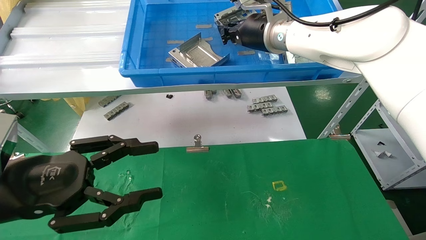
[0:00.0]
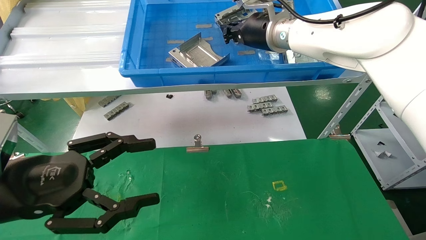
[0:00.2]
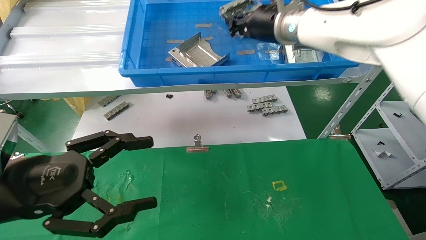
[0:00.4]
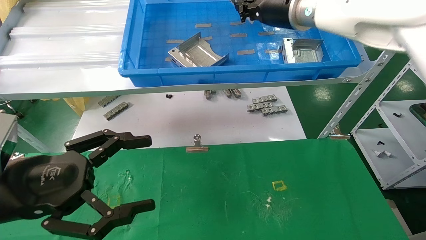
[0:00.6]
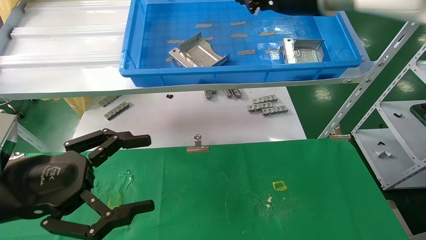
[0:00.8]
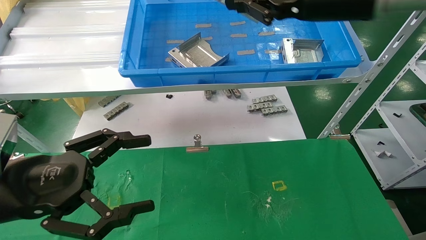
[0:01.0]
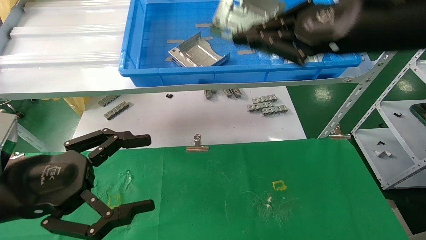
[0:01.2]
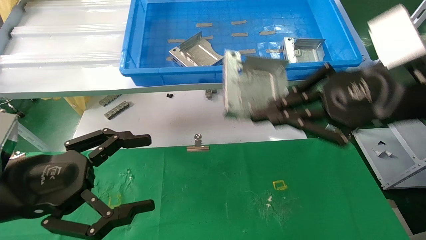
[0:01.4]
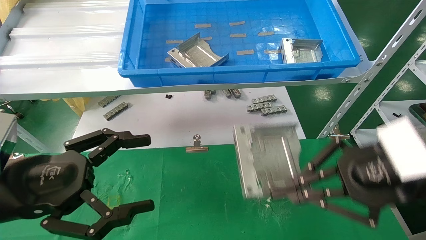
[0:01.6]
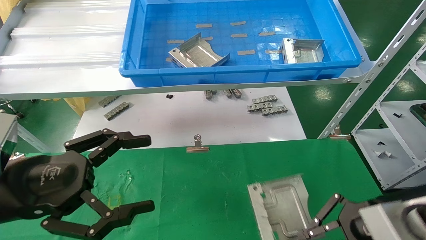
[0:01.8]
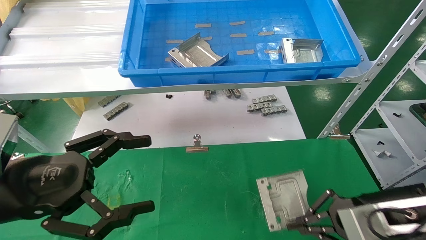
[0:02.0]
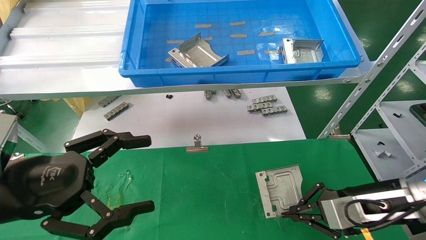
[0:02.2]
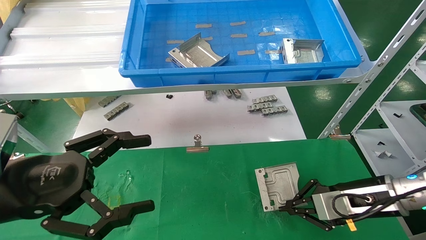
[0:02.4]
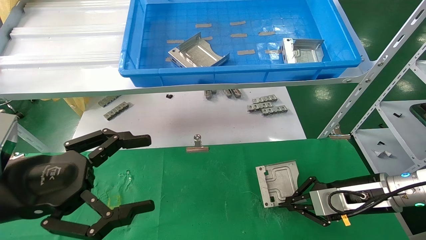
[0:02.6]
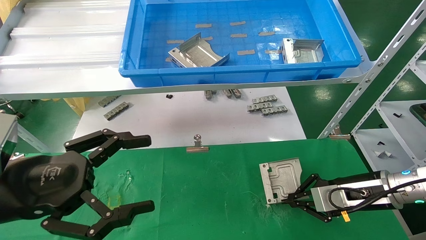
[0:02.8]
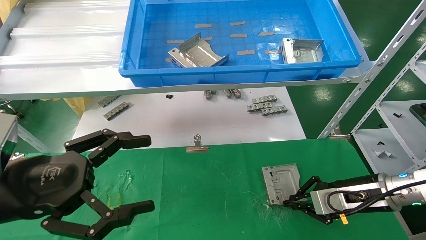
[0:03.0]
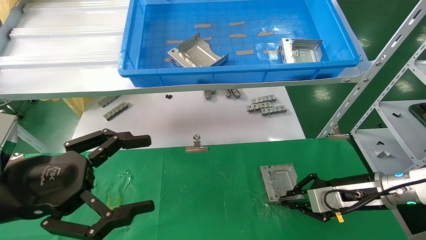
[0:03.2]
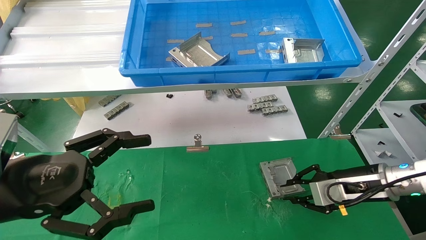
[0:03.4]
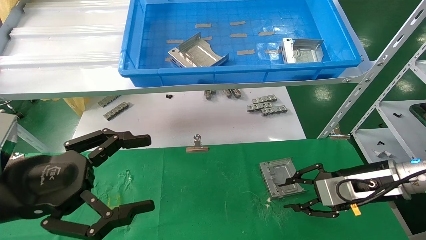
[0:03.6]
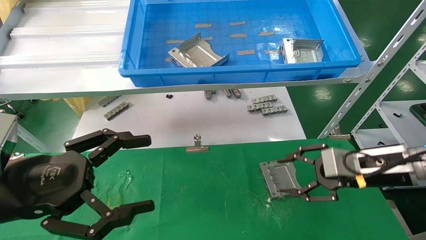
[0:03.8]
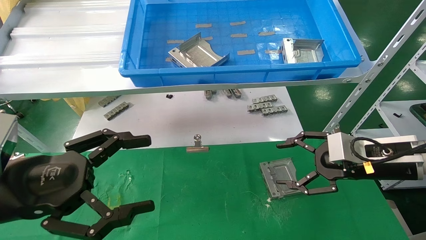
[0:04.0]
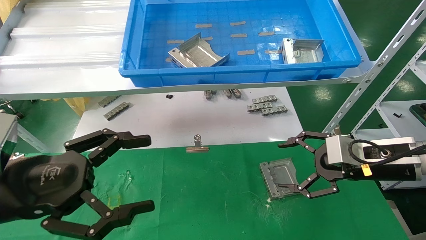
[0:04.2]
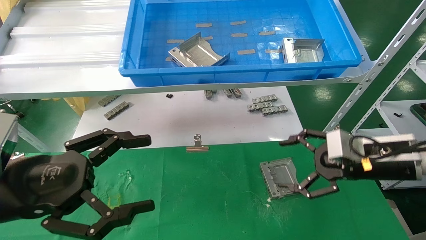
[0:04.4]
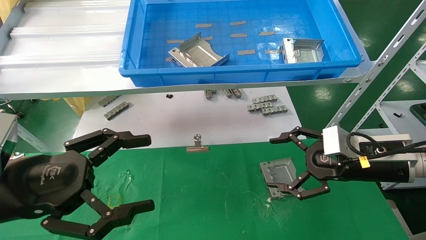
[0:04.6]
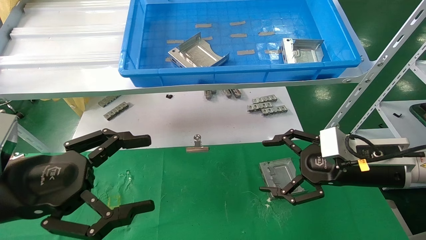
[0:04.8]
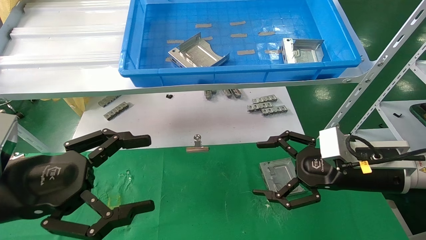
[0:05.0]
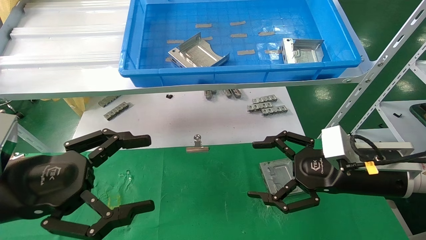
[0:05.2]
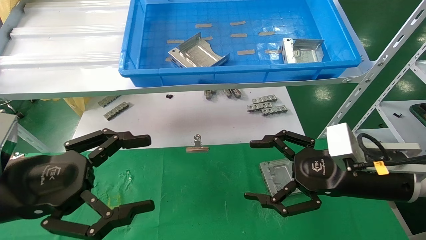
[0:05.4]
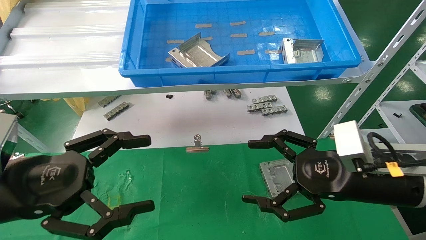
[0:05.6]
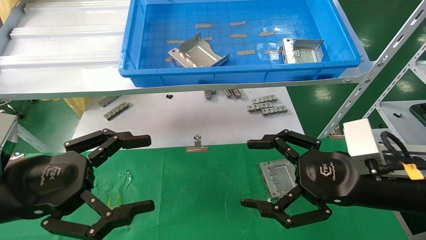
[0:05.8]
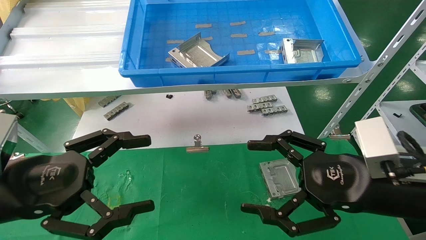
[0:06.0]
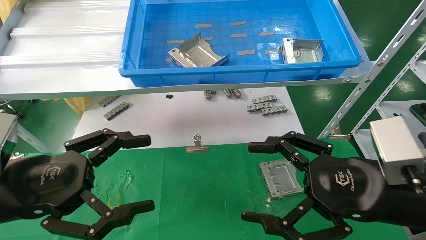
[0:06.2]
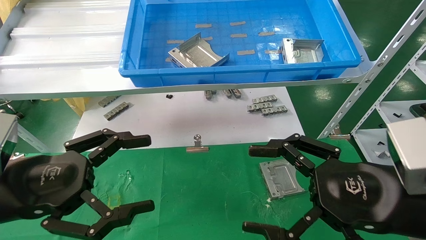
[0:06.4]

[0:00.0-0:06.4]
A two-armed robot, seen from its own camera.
Task of the whole recording: use the mechanical arm to pick up the parts and place them on the table.
Step, 0:01.2 to 0:03.8: Place the hard drive bracket into the box.
0:00.0 to 0:01.6: The left gripper opens, while the right gripper shifts about 30 cm backward, to the right and downward.
0:01.6 to 0:03.2: The right gripper travels downward and forward by about 20 cm.
0:03.2 to 0:04.8: The right gripper shifts approximately 5 cm upward, and opens up.
0:04.8 to 0:06.4: The right gripper moves backward, about 10 cm.
